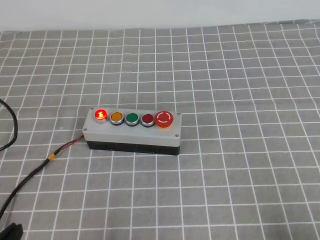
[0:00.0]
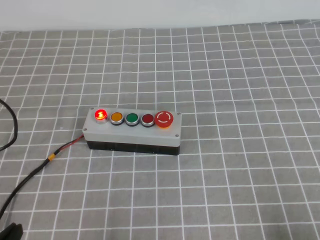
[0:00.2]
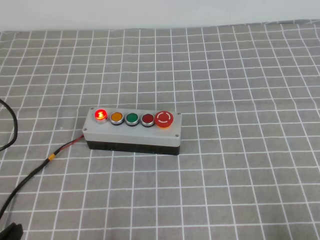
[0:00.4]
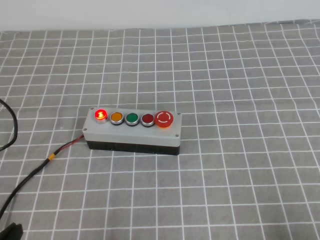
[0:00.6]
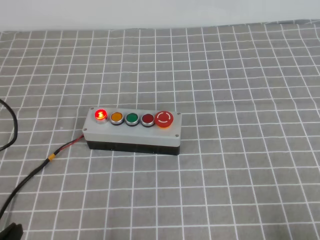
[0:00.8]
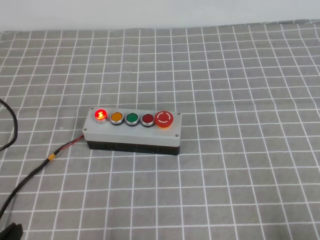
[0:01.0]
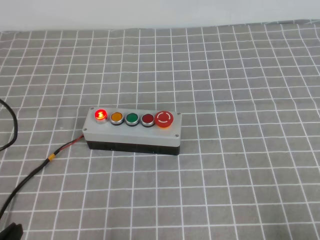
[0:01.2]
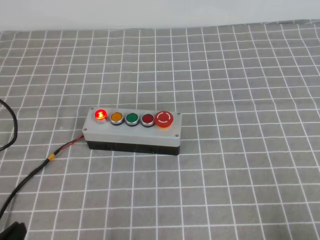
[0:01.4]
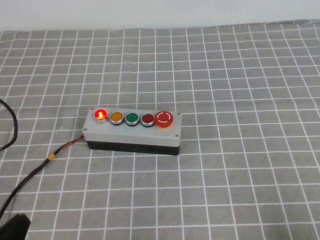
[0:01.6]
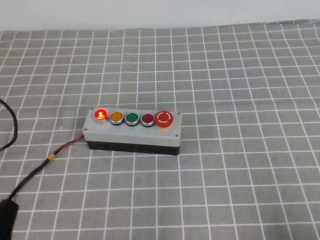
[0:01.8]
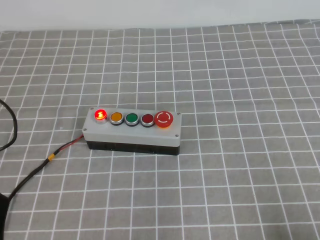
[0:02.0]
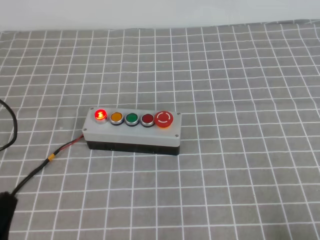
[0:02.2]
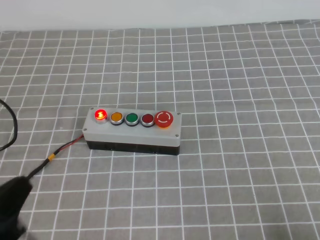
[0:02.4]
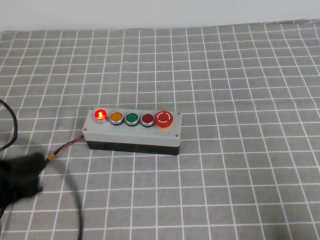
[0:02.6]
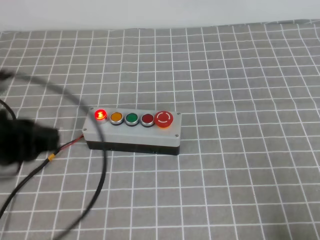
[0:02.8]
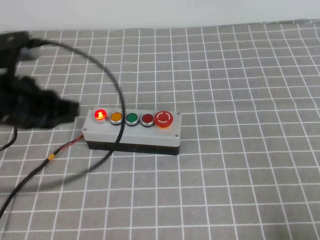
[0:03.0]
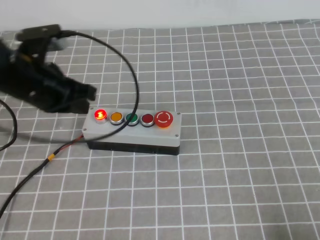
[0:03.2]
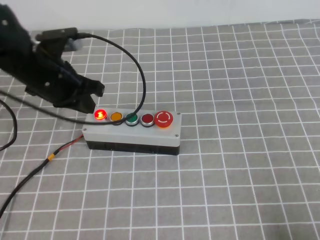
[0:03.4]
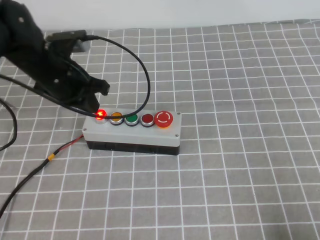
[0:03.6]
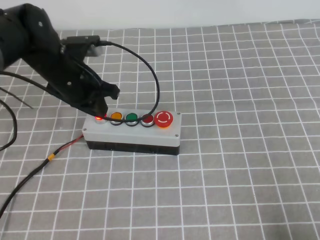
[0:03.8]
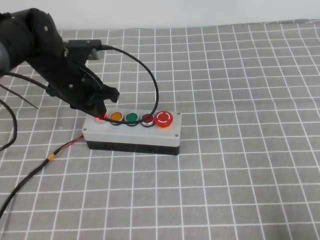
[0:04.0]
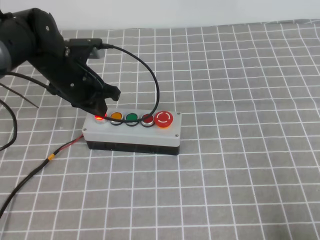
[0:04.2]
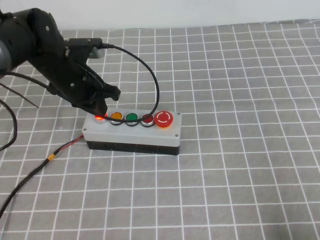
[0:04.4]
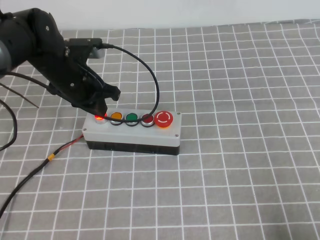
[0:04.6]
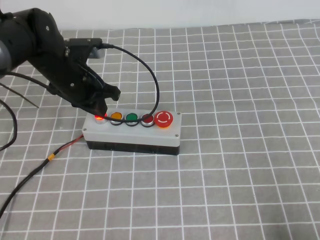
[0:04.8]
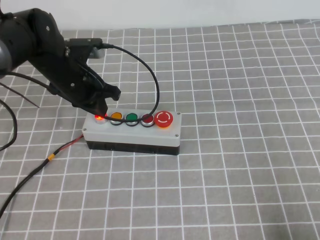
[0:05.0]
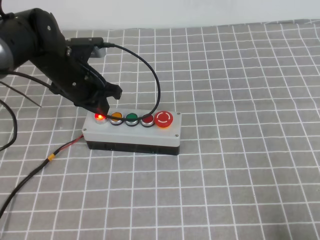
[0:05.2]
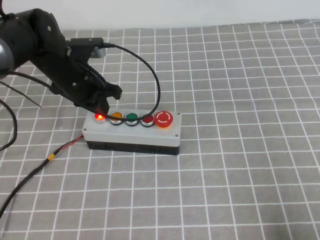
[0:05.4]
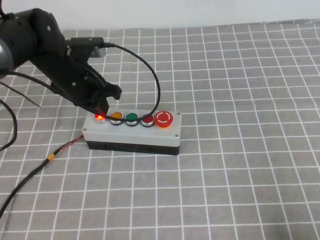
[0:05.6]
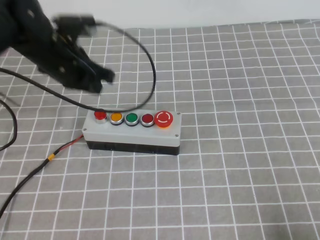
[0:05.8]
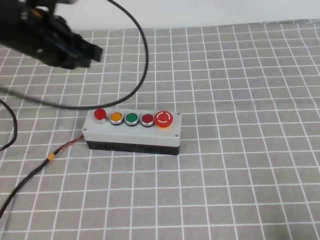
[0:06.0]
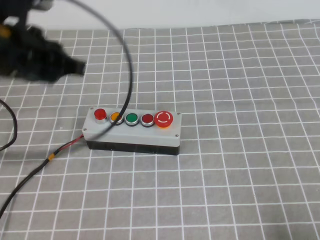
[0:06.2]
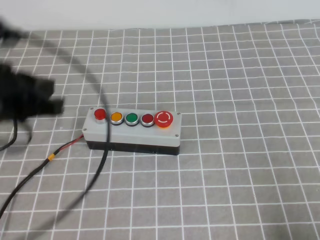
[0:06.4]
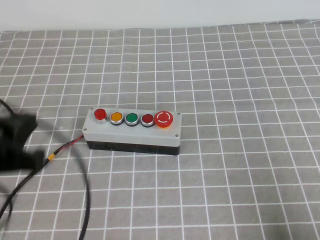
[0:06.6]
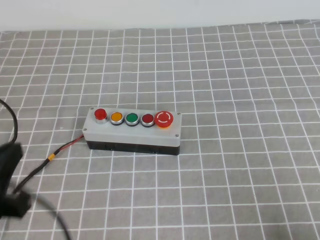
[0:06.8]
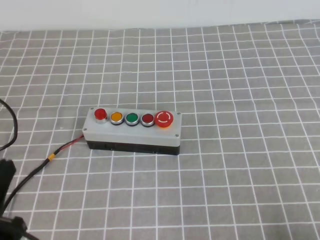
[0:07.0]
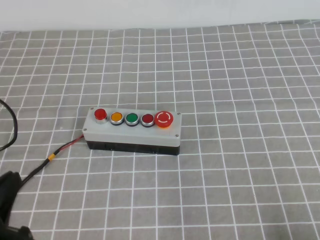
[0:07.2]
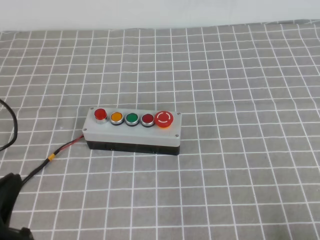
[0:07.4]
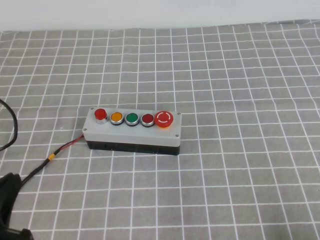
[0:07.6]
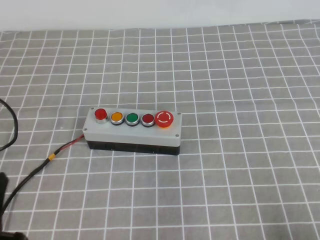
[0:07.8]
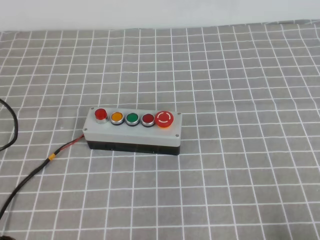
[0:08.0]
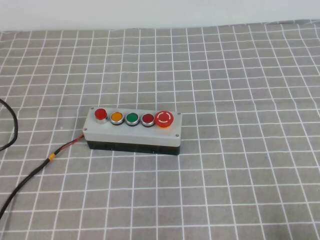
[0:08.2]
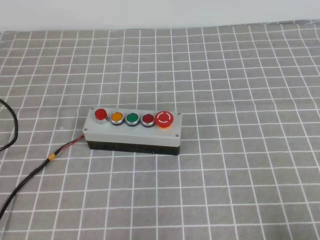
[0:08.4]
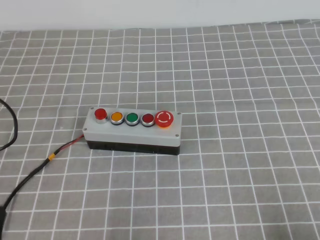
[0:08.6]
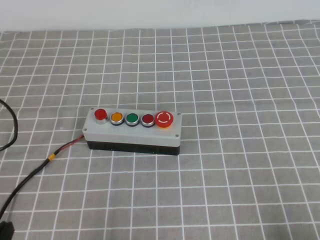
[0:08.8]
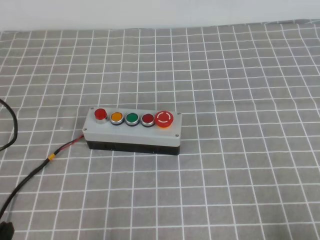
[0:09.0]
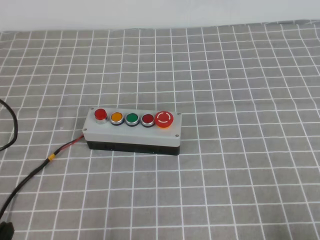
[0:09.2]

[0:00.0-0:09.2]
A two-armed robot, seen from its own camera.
Task of the whole recording: press the button switch on the grey tablecloth with the left gripper to turn off the button.
Step, 0:00.0 to 0:09.2: Press the button to turn off.
0:01.6 to 0:03.0: The left gripper is displaced upward and forward by some 20 cm.
0:03.0 to 0:04.6: The left gripper heads forward and downward, covering about 20 cm.
0:04.6 to 0:06.2: The left gripper is displaced upward and backward by some 15 cm.
0:06.2 to 0:07.6: The left gripper moves backward and downward, approximately 25 cm.
0:07.6 to 0:09.2: The left gripper shifts some 10 cm downward.

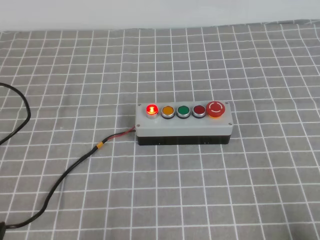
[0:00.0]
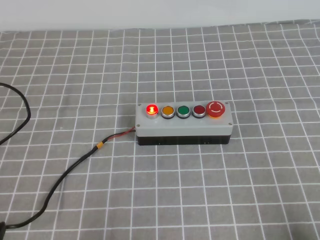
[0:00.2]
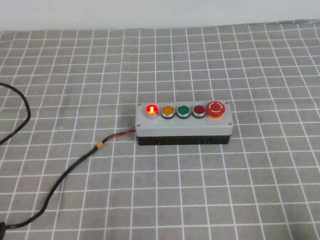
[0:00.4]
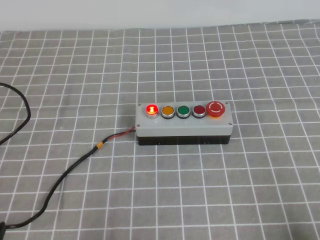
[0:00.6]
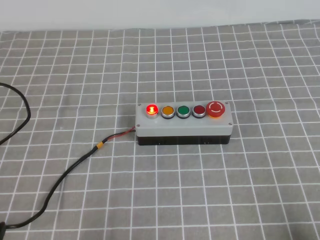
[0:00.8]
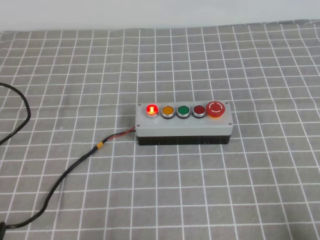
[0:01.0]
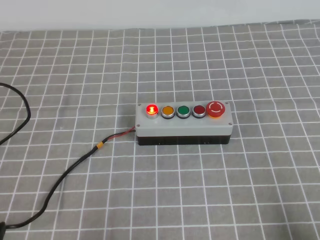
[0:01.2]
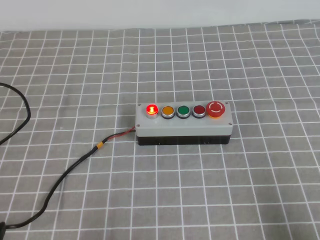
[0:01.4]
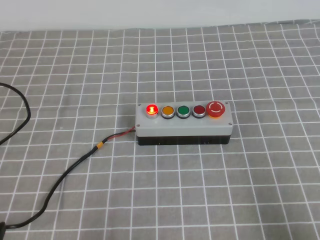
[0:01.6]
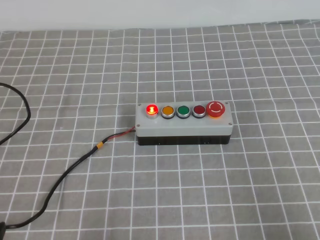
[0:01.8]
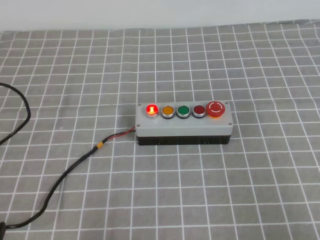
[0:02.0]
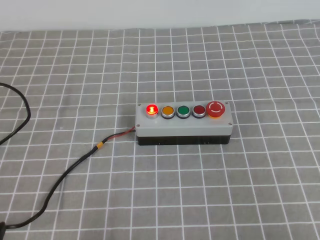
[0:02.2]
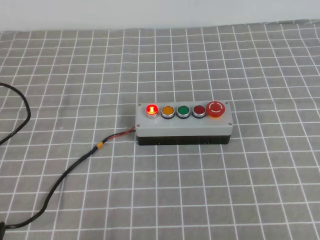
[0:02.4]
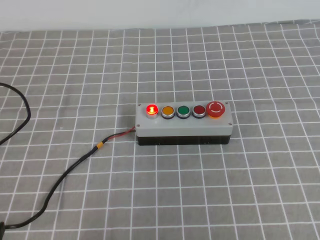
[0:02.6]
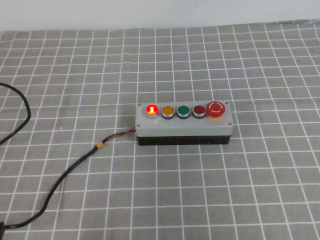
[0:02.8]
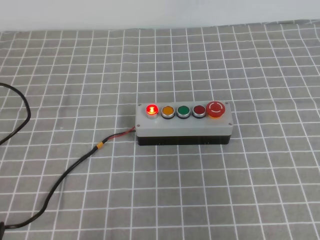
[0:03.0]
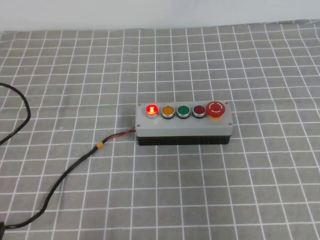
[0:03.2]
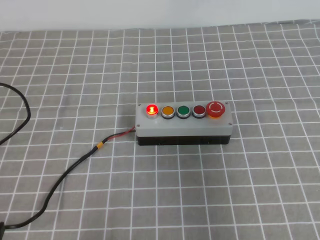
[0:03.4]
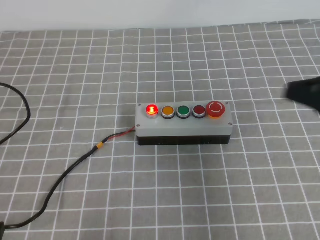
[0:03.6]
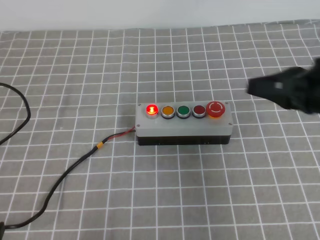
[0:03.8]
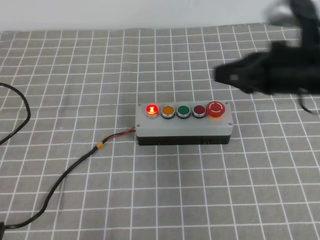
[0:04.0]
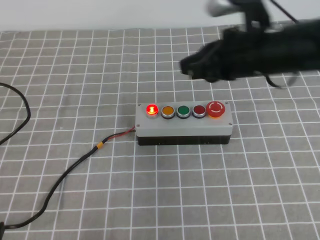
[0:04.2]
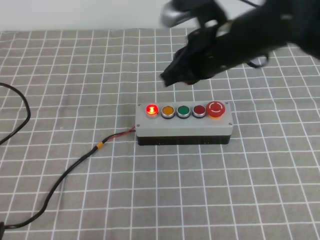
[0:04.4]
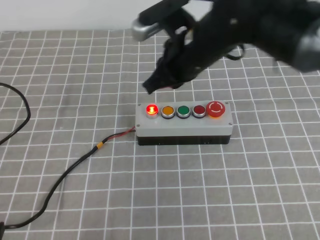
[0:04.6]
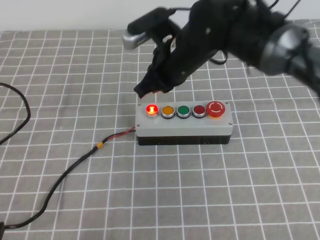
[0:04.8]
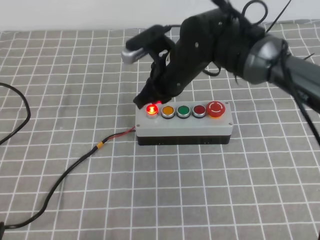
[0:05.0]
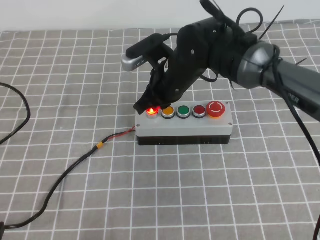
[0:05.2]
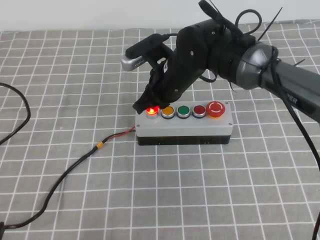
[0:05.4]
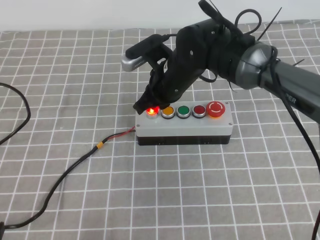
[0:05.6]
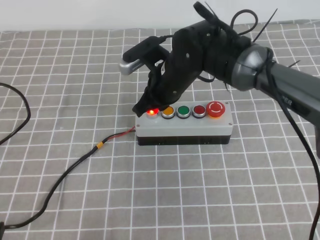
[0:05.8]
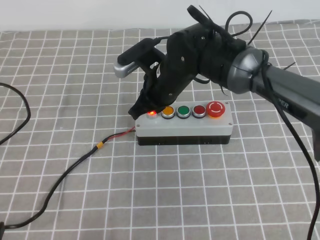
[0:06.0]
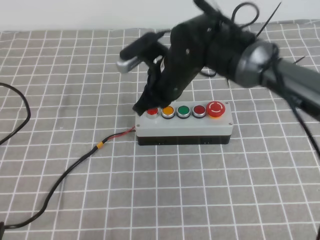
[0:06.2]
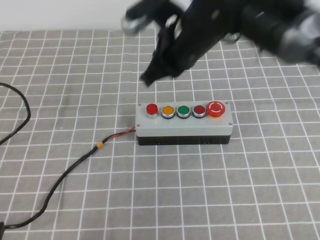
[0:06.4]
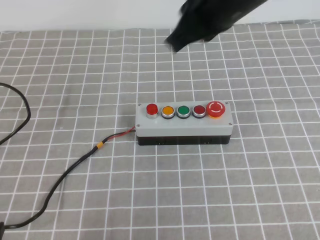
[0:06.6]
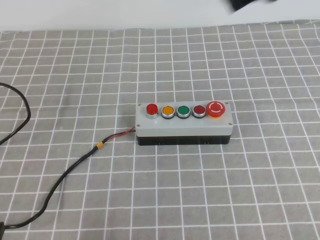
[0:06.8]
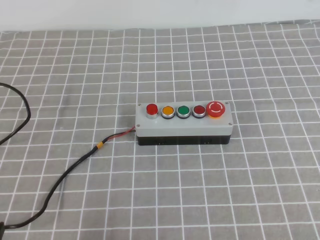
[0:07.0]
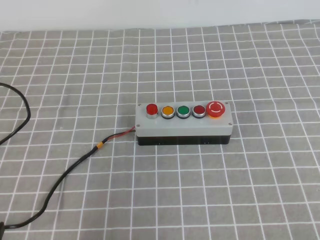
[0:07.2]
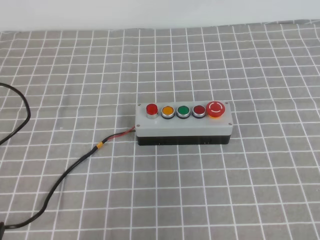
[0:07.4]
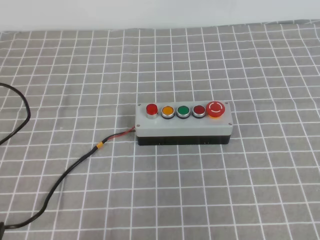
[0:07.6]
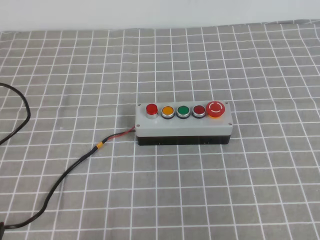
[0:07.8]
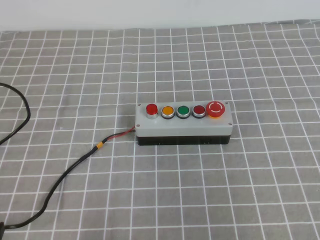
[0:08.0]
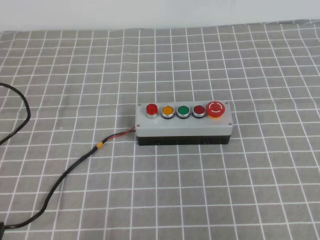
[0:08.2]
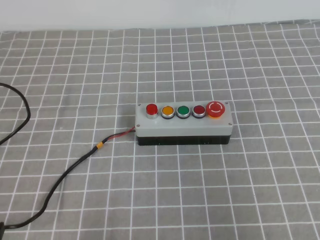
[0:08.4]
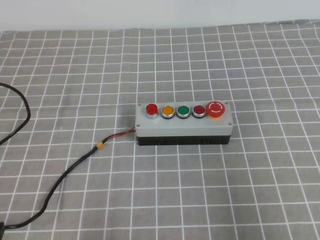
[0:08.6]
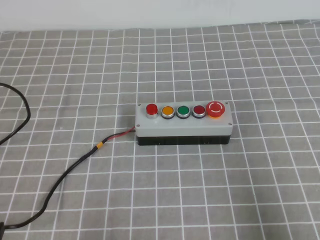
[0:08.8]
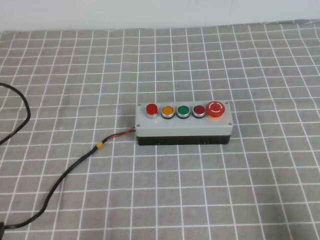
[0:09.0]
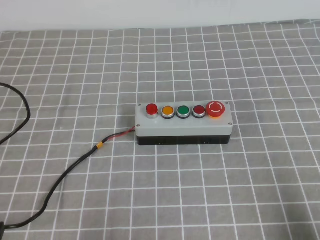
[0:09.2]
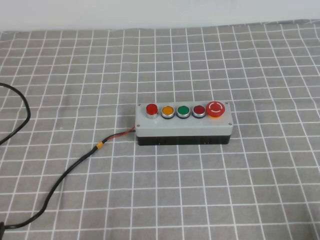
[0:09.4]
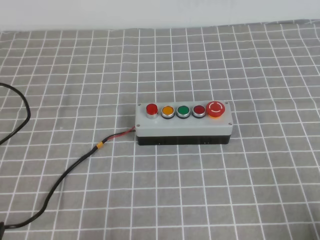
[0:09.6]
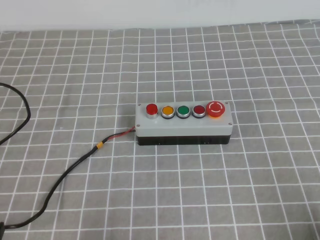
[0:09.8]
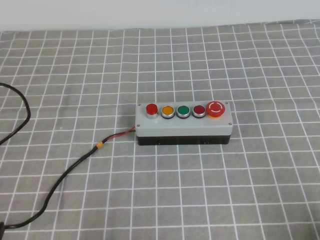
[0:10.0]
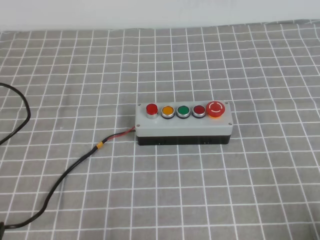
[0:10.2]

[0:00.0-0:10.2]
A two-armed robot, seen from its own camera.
Task of the whole recording: press the button switch on the grey tablecloth with the right gripper to turn off the button.
Step, 0:00.0 to 0:10.2: Press the button to turn off.
0:01.4 to 0:03.0: The right gripper travels upward by roughly 20 cm.
0:03.0 to 0:04.4: The right gripper is displaced forward and to the left by roughly 30 cm.
0:04.4 to 0:05.8: The right gripper shifts about 15 cm downward, to the left and forward.
0:05.8 to 0:07.2: The right gripper is displaced upward, backward and to the right by about 40 cm.
0:07.2 to 0:08.8: The right gripper moves up and down over about 30 cm, changing direction 2 times.
0:08.8 to 0:10.2: The right gripper shifts roughly 10 cm downward.
